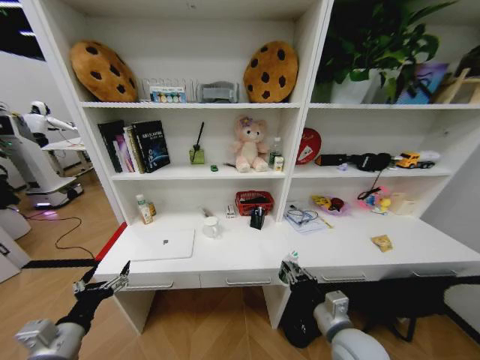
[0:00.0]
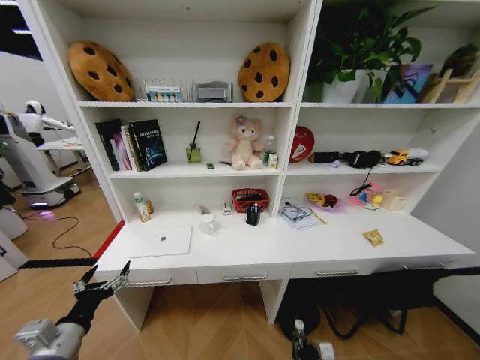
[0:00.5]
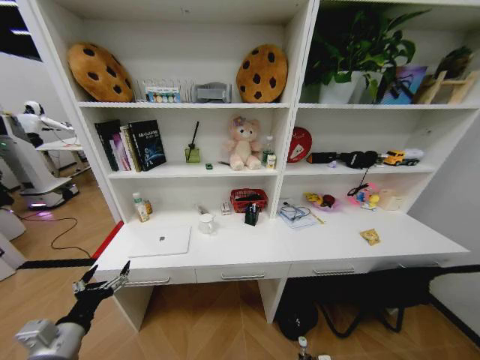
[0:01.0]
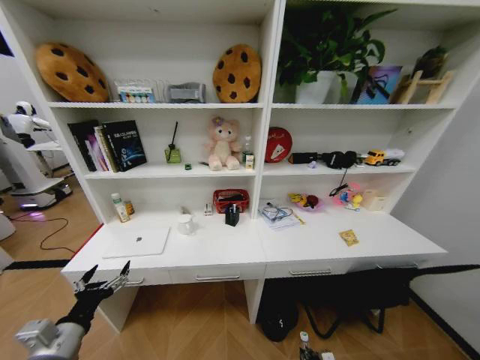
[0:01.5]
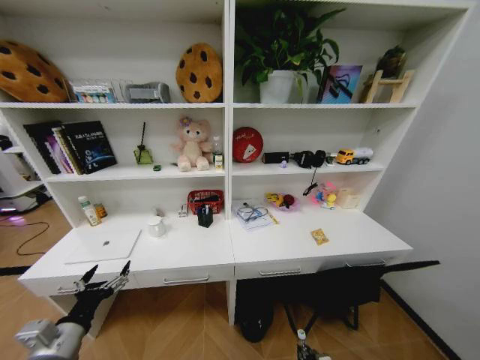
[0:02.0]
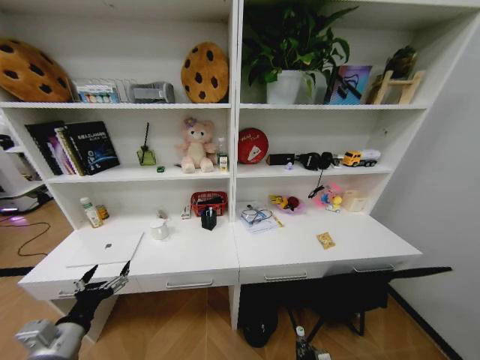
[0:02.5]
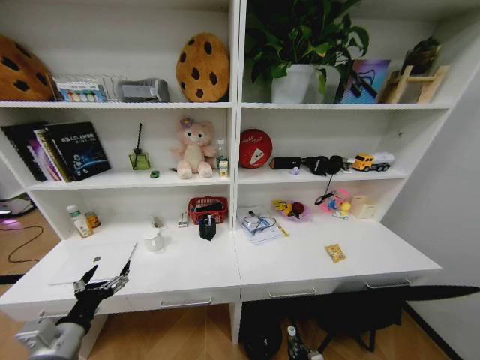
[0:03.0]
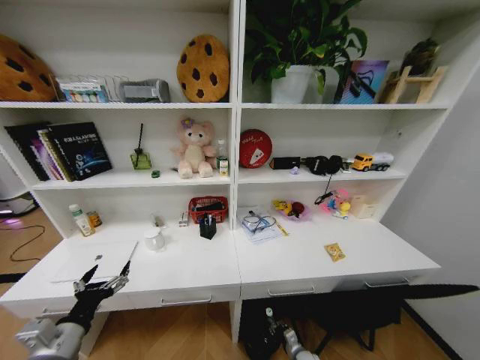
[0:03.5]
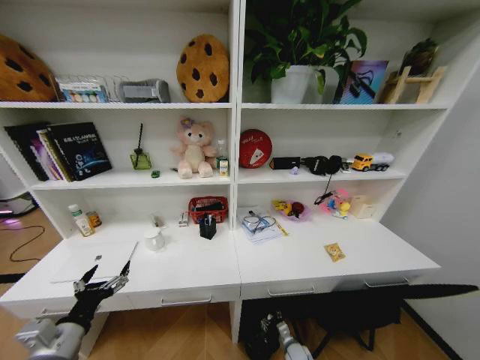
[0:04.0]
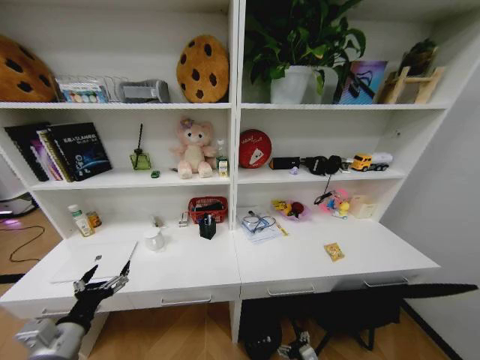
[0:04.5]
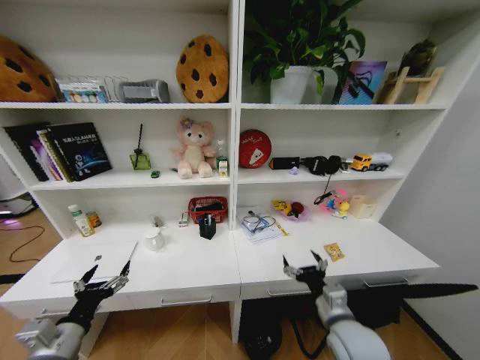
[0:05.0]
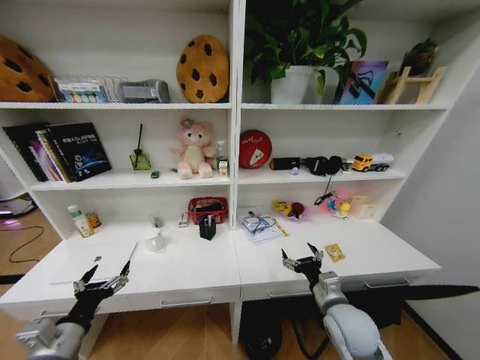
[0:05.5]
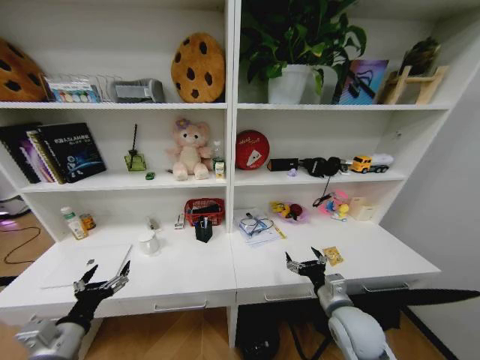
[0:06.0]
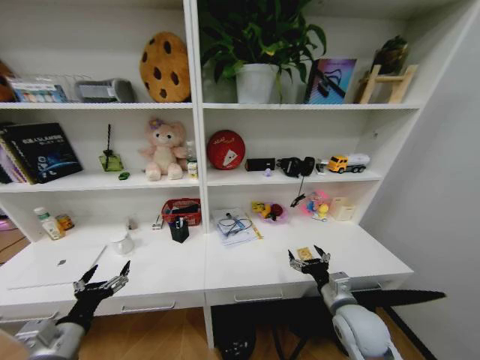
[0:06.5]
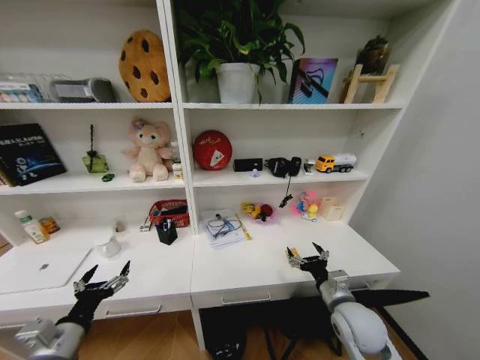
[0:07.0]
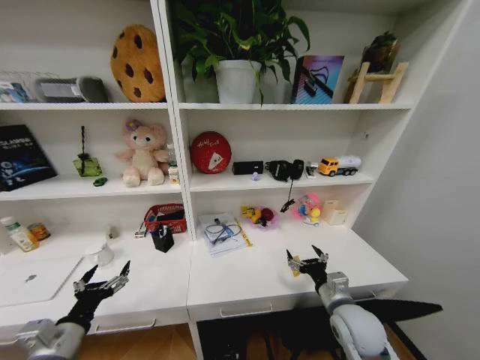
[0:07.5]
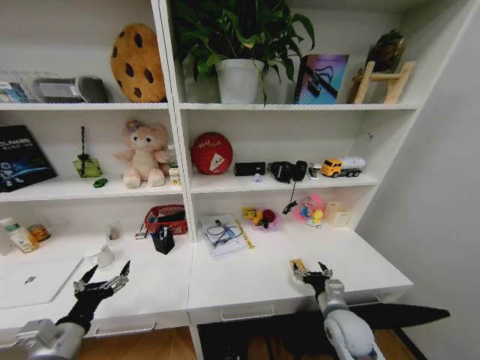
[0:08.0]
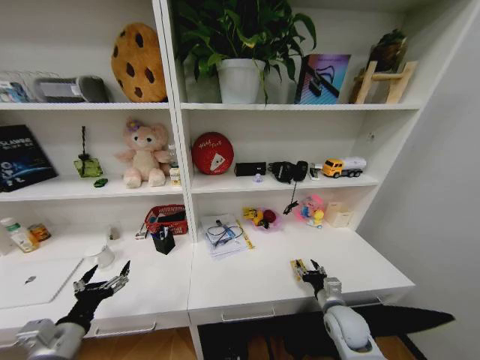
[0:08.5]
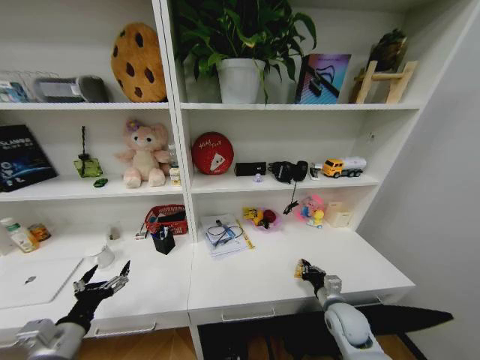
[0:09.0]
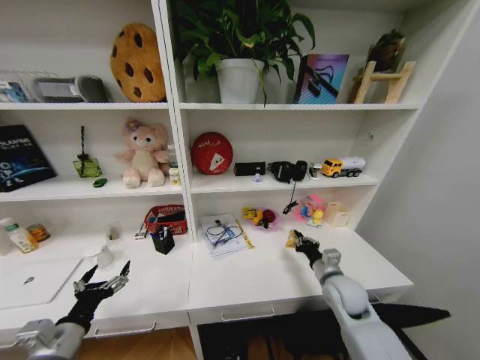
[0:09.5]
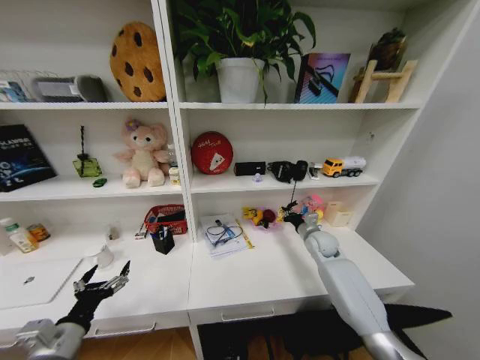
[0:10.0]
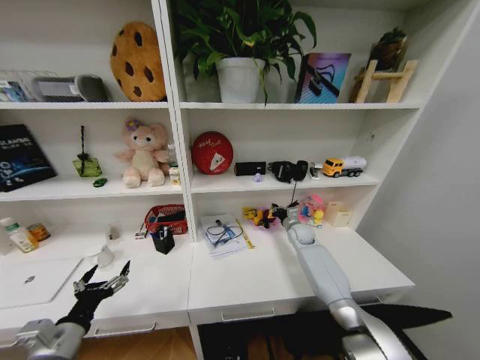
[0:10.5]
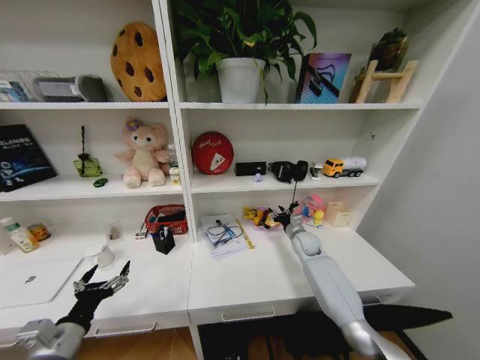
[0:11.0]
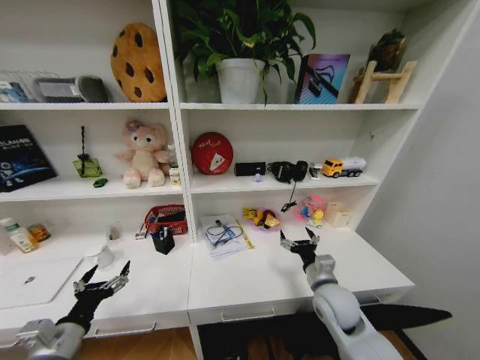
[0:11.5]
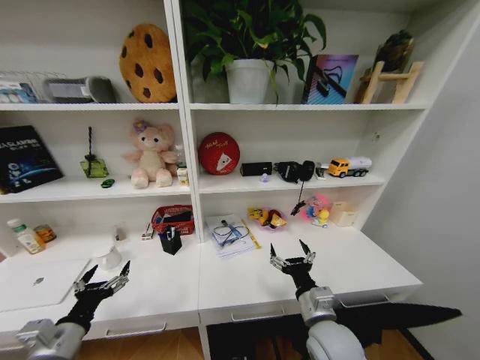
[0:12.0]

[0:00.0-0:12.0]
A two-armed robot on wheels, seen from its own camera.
Task of the whole recording: Organize the objects on the table.
0:00.0 to 0:02.0: The right gripper heads downward, covering about 30 cm.
0:02.0 to 0:04.0: The right gripper is displaced forward, downward and to the left by approximately 15 cm, and opens up.
0:04.0 to 0:06.0: The right gripper travels upward by some 40 cm.
0:06.0 to 0:08.0: The right gripper heads downward, covering approximately 5 cm.
0:08.0 to 0:10.0: The right gripper heads forward, covering roughly 20 cm, and closes.
0:10.0 to 0:12.0: The right gripper shifts some 30 cm backward and to the left, and opens.

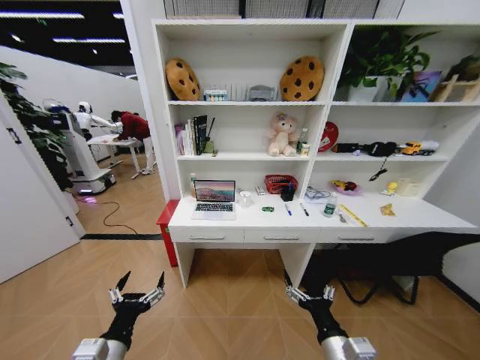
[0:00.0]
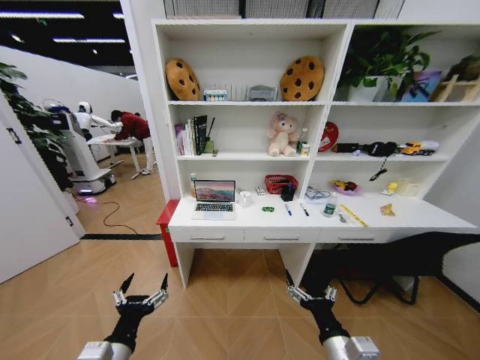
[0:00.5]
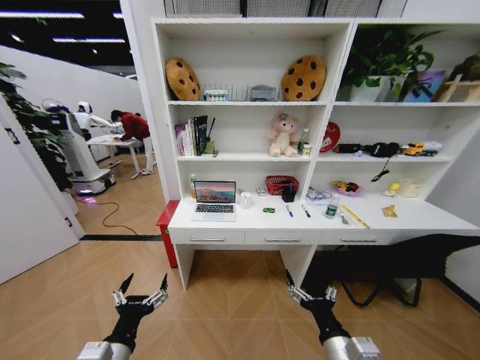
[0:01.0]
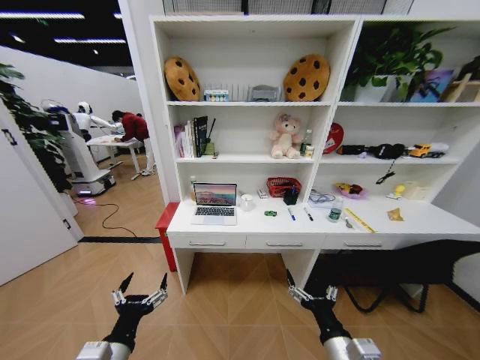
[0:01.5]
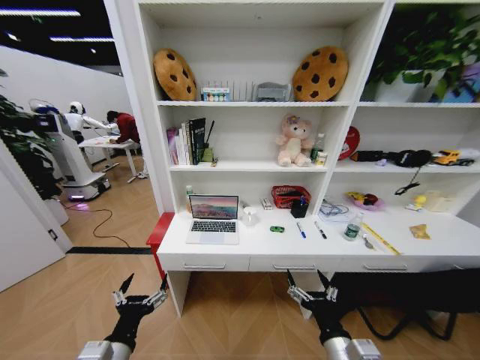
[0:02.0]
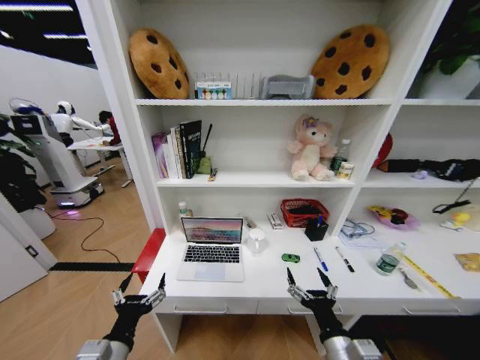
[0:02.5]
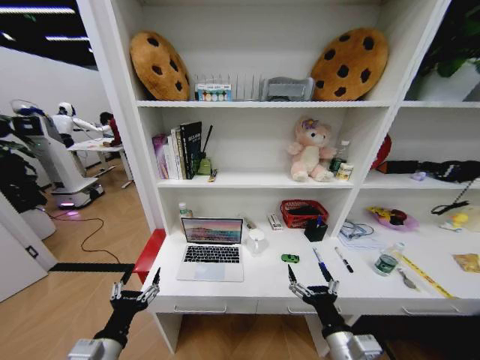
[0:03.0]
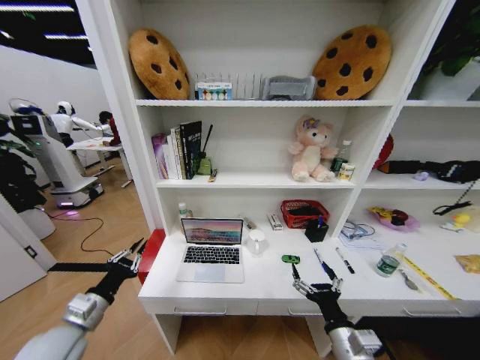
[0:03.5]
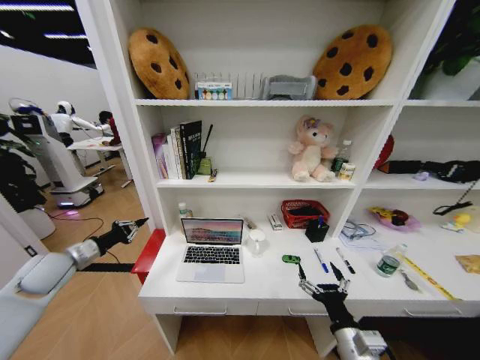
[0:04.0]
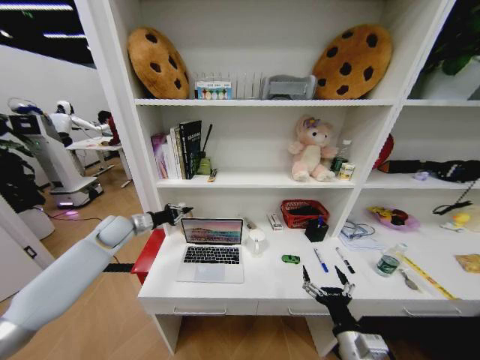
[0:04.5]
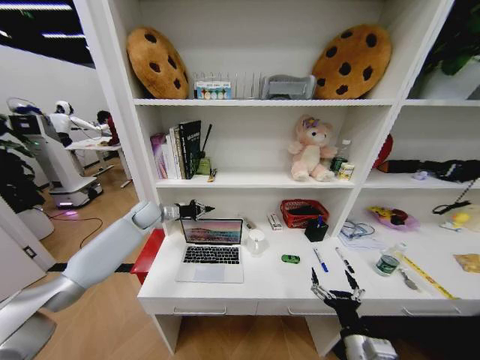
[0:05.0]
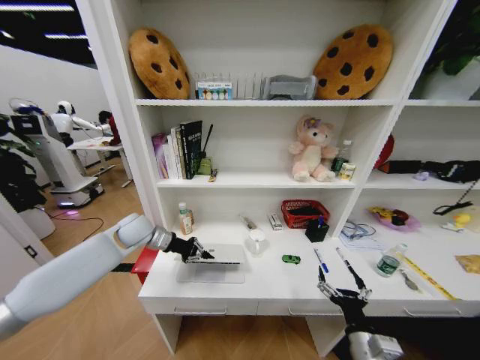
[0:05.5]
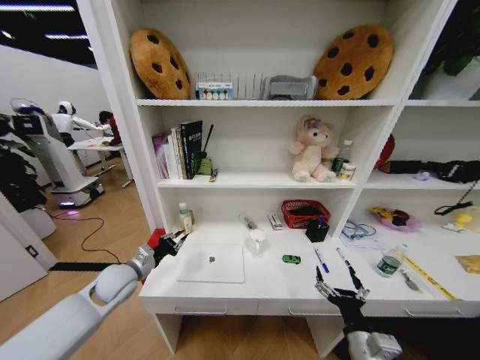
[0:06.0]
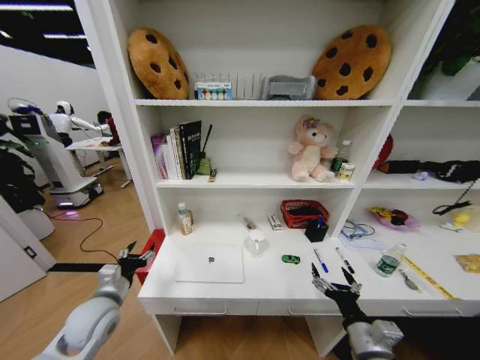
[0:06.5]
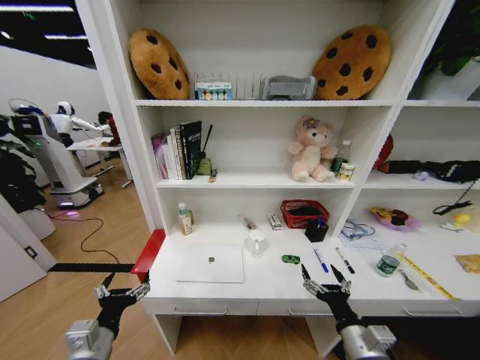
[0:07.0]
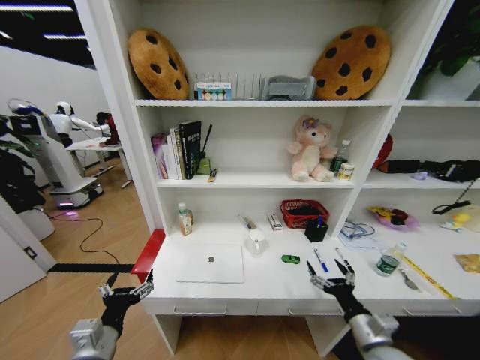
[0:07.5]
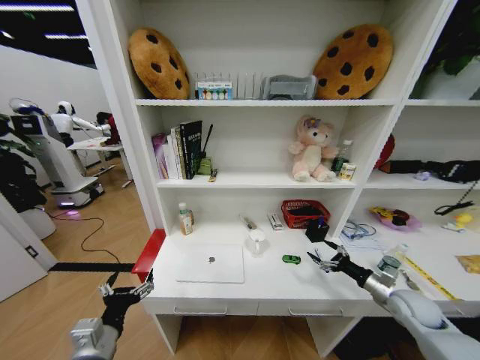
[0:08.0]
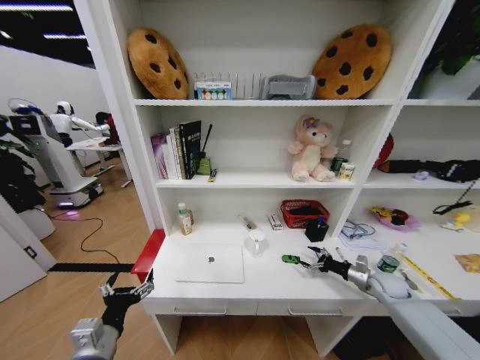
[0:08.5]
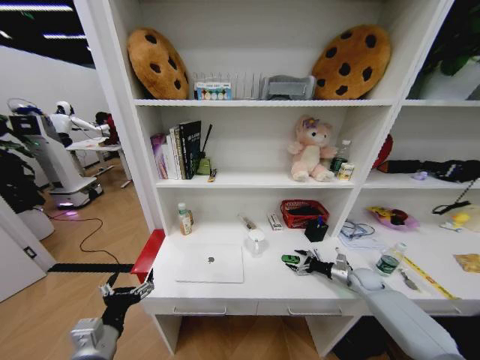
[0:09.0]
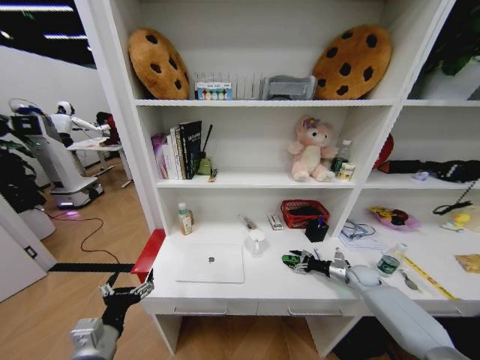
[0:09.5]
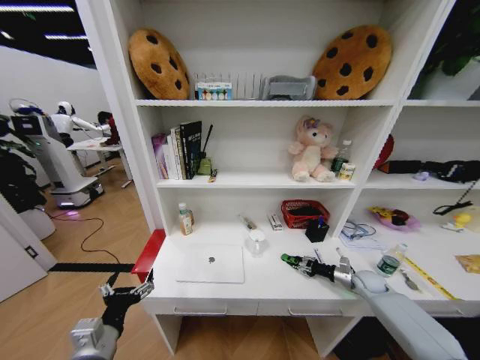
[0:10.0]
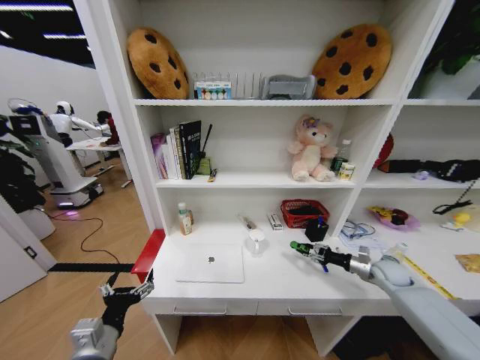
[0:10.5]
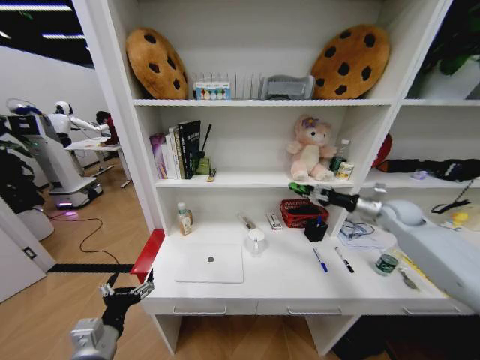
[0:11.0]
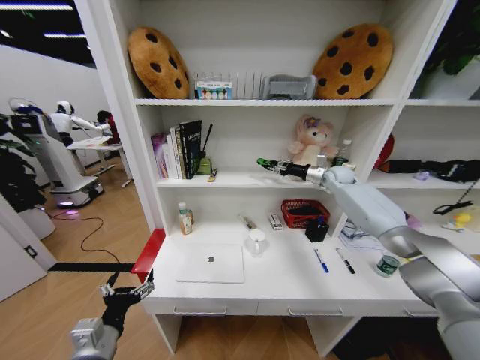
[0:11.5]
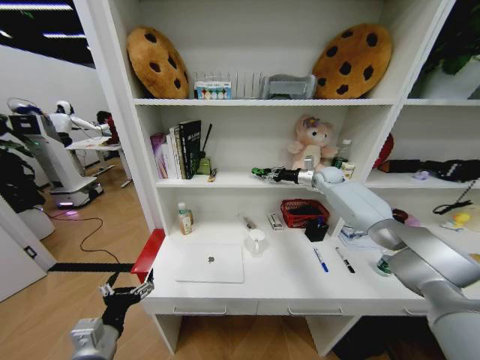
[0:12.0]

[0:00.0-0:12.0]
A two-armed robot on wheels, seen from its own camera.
Task of the whole recording: Organize the objects on the table.
0:02.0 to 0:04.0: The left gripper heads forward and to the left, covering roughly 35 cm, and closes.
0:04.0 to 0:06.0: The left gripper shifts about 15 cm to the right and downward, and moves approximately 20 cm forward and comes back.
0:06.0 to 0:08.0: The right gripper moves to the right and forward, some 30 cm, while the left gripper heads backward, covering roughly 20 cm, and opens.
0:08.0 to 0:10.0: The right gripper heads forward and downward, covering some 15 cm, and closes its fingers.
0:10.0 to 0:12.0: The right gripper shifts roughly 40 cm upward, forward and to the left.

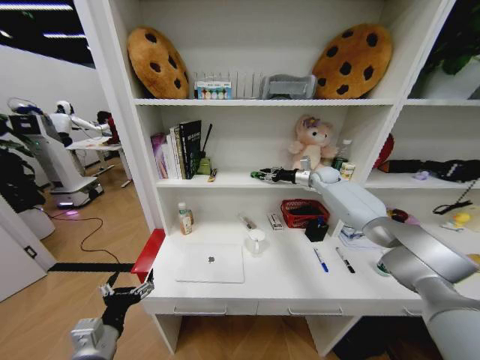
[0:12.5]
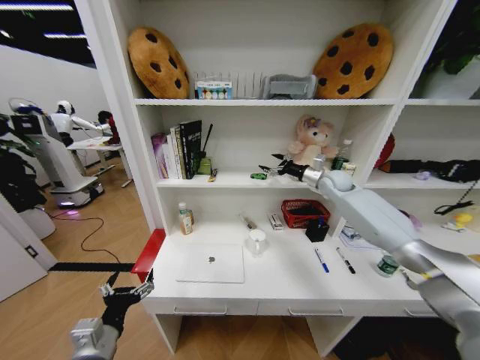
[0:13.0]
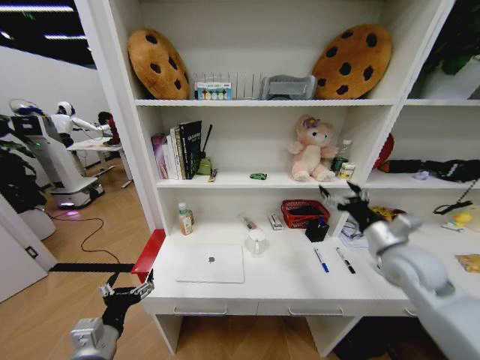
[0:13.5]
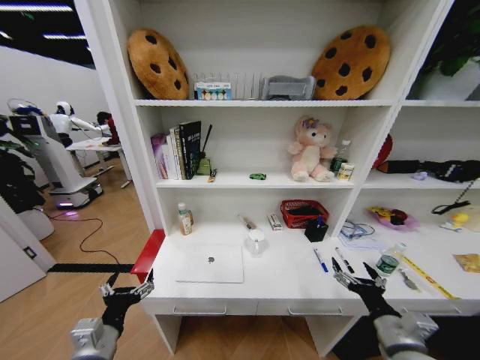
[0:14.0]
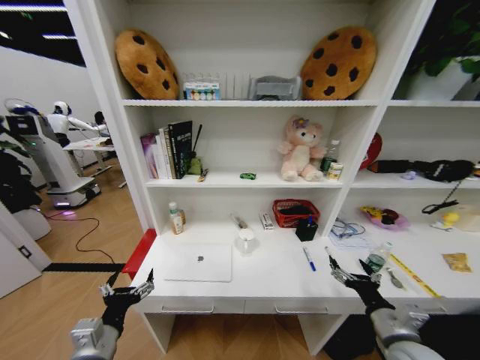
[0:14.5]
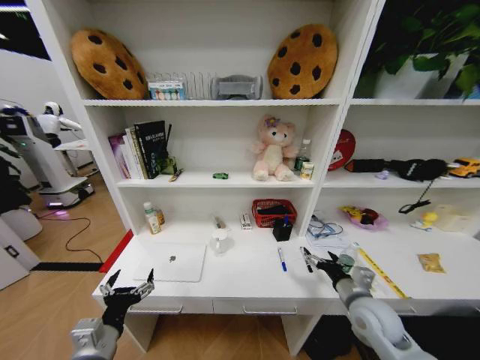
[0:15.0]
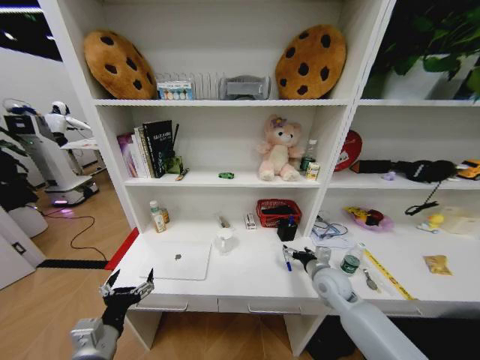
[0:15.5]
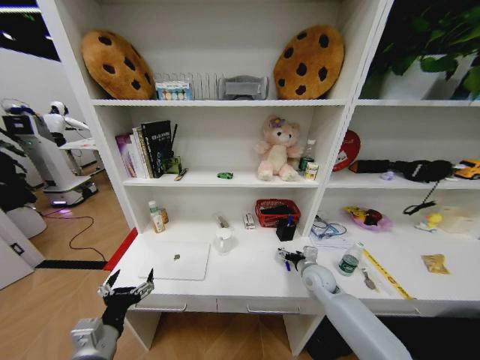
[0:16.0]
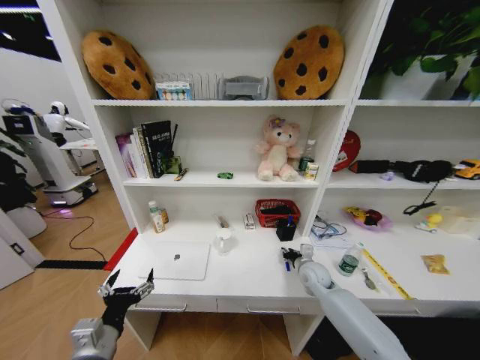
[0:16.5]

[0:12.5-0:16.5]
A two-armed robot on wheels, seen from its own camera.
Task of the whole recording: Organize the objects on the table.
0:12.5 to 0:14.5: The right gripper goes some 50 cm backward, and opens up.
0:14.5 to 0:16.5: The right gripper goes approximately 25 cm forward, and closes its fingers.
